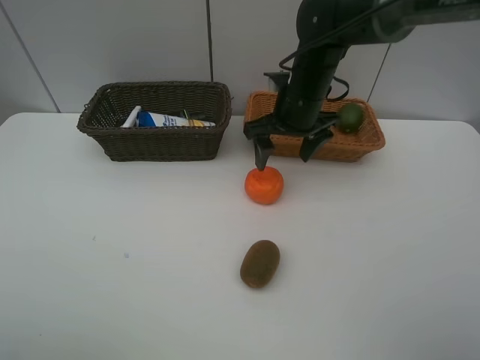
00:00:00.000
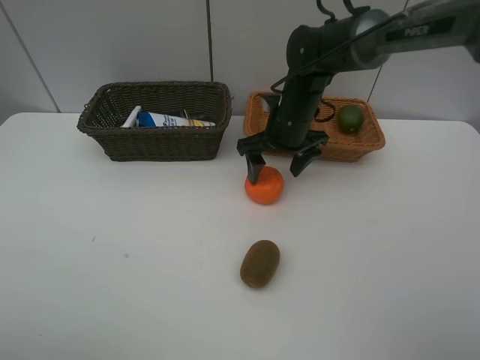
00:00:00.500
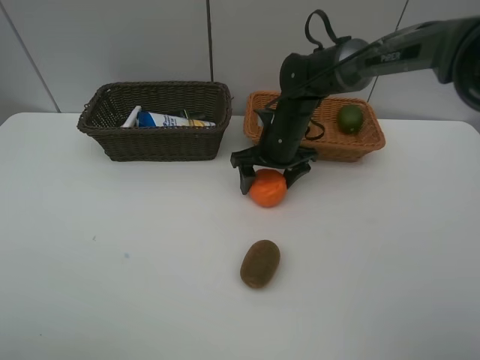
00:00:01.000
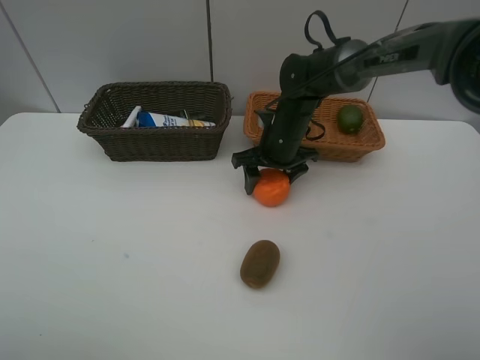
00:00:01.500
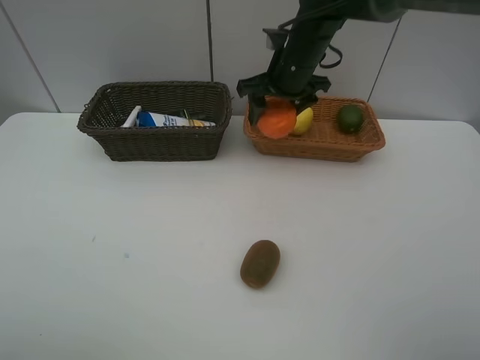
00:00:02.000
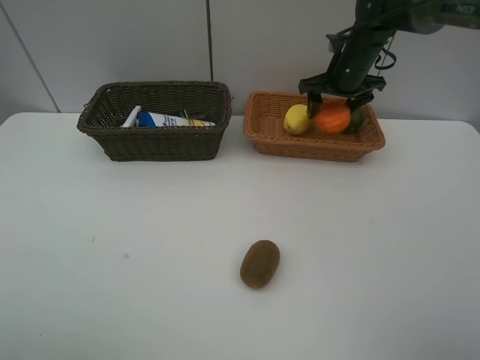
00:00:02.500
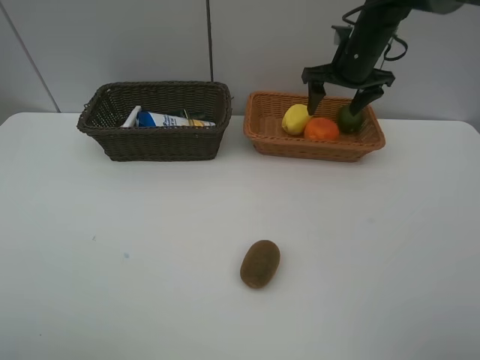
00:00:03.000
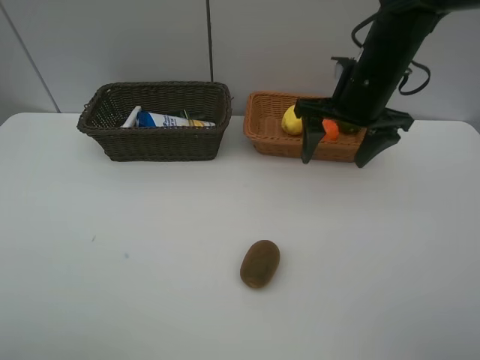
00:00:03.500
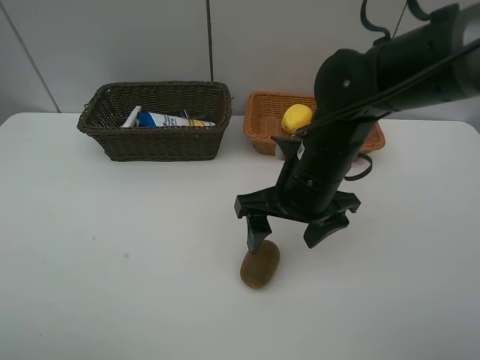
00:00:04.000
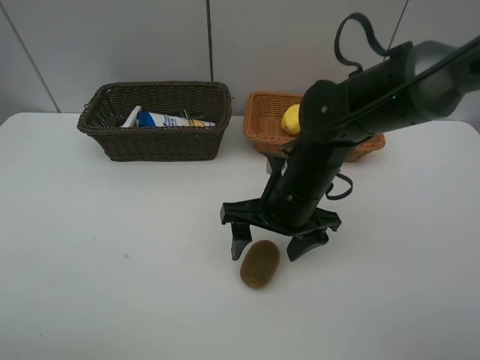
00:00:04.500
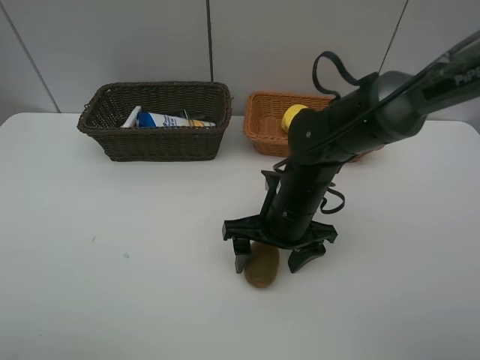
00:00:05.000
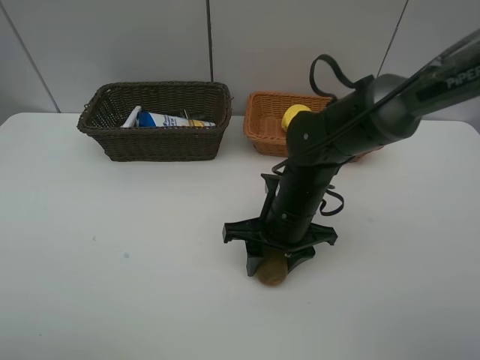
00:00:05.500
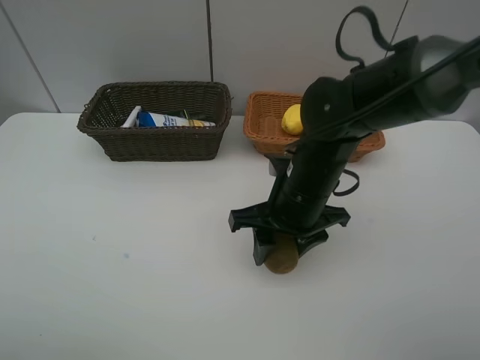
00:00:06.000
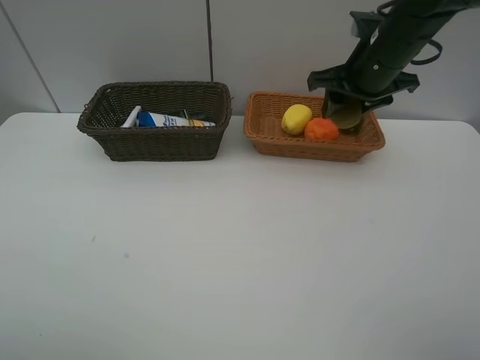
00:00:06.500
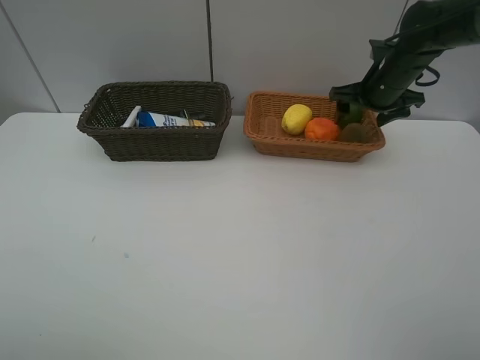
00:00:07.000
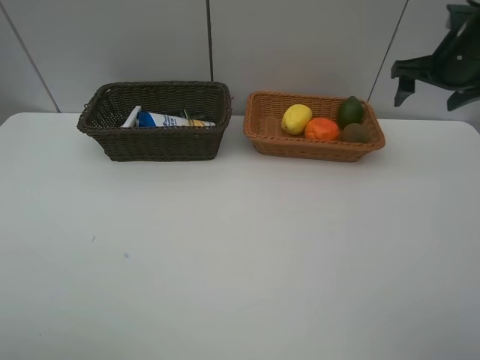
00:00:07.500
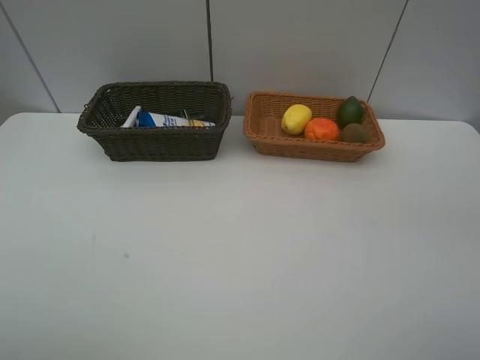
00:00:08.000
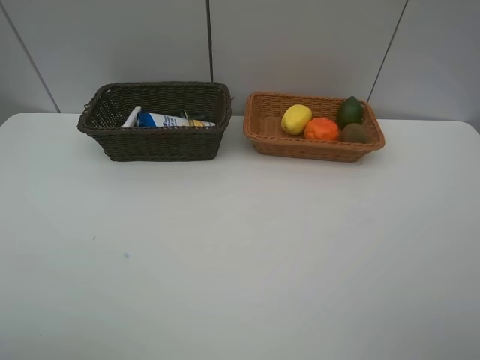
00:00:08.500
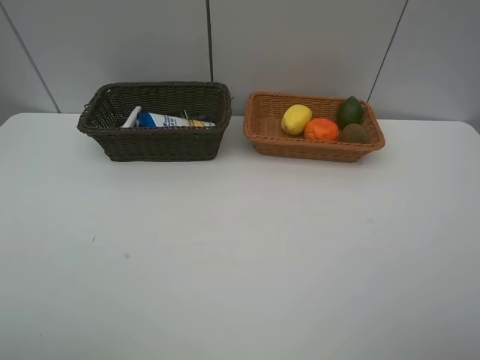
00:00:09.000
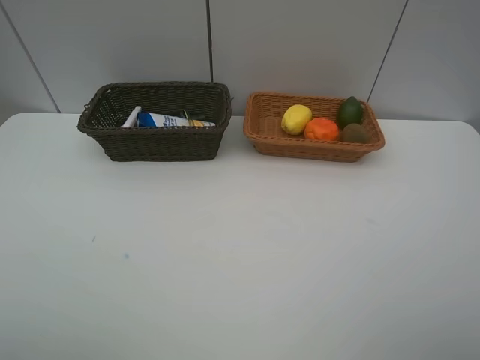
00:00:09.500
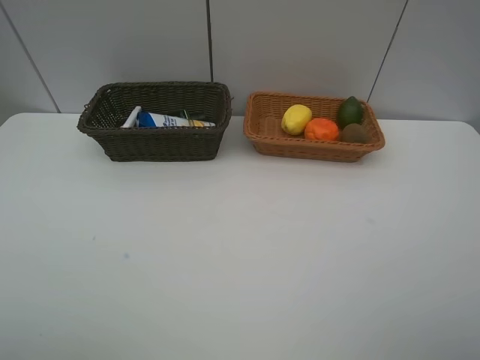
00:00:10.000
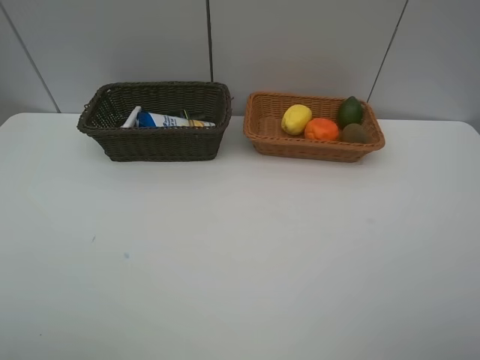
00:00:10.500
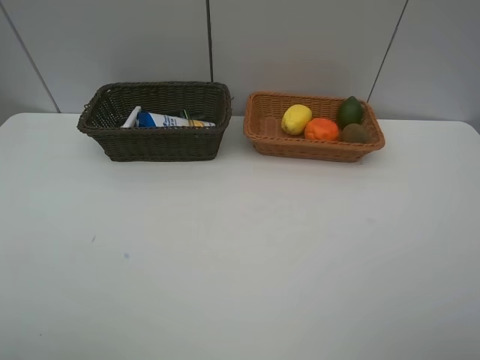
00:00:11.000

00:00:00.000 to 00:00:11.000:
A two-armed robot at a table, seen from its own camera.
Task of the whole recording: Place multiple objects separately in different baskets.
Step, 00:00:00.000 to 00:00:01.500: Pick up the orange with right gripper.
Step, 00:00:02.000 to 00:00:02.500: Place the orange in the light basket with right gripper.
Step, 00:00:03.000 to 00:00:06.000: Pick up kiwi with right gripper.
Step, 00:00:06.500 to 00:00:07.000: Place the kiwi in the light basket with right gripper.
00:00:00.000 to 00:00:02.000: The right gripper is displaced forward by roughly 5 cm, and closes.
00:00:02.000 to 00:00:03.500: The right gripper moves backward and to the right, roughly 15 cm, and opens up.
00:00:03.500 to 00:00:05.500: The right gripper goes some 20 cm downward, backward and to the left, and closes up.
00:00:05.500 to 00:00:07.500: The right gripper moves to the right, upward and forward, approximately 35 cm, and opens its fingers.
00:00:07.500 to 00:00:09.000: The right gripper shifts some 40 cm backward.
